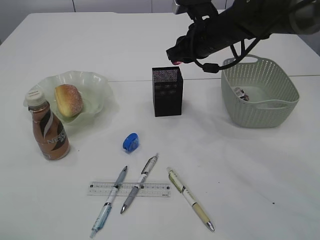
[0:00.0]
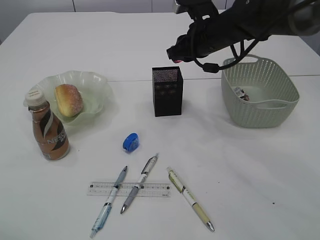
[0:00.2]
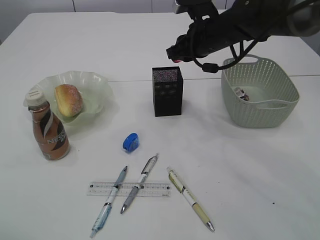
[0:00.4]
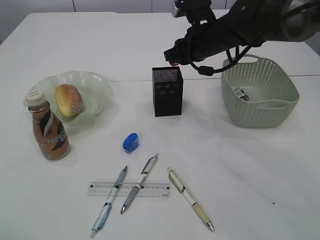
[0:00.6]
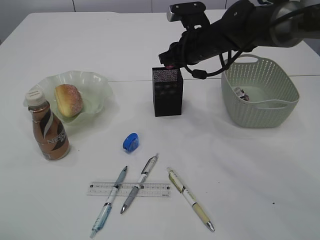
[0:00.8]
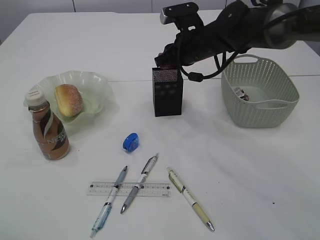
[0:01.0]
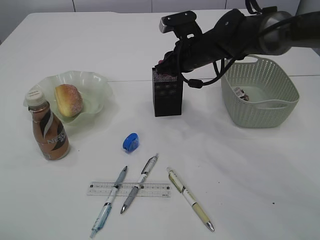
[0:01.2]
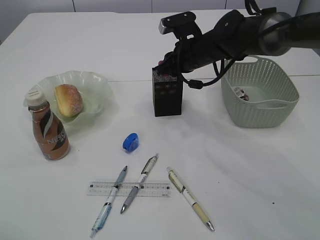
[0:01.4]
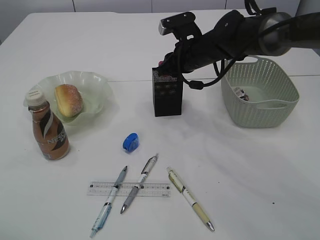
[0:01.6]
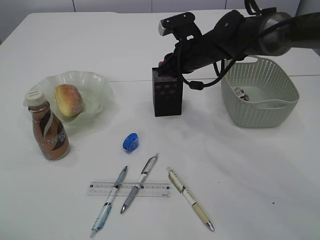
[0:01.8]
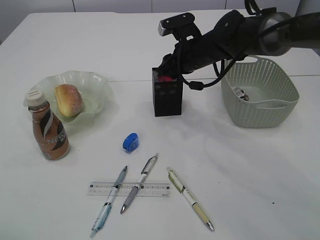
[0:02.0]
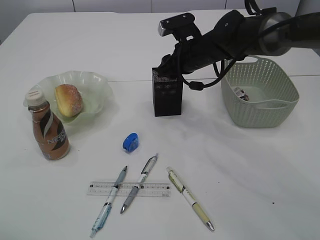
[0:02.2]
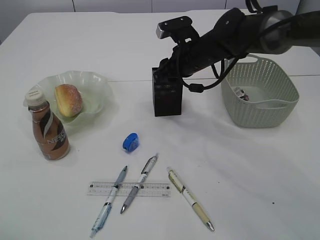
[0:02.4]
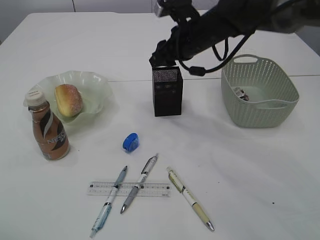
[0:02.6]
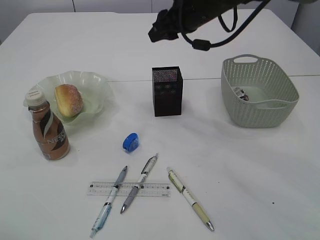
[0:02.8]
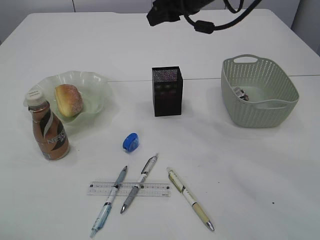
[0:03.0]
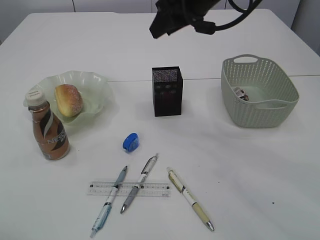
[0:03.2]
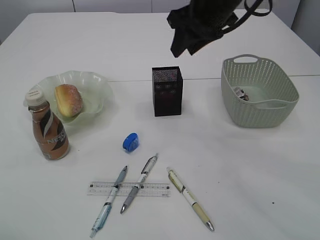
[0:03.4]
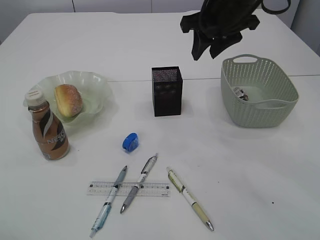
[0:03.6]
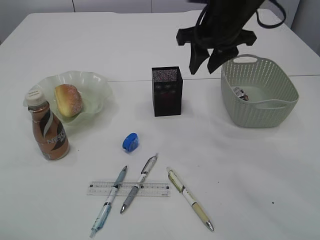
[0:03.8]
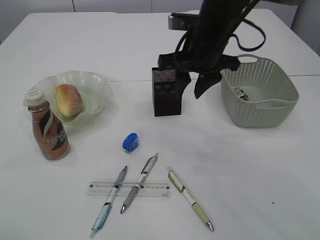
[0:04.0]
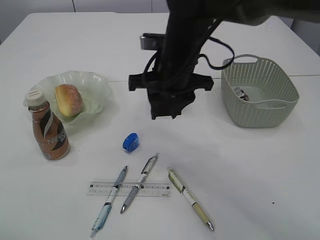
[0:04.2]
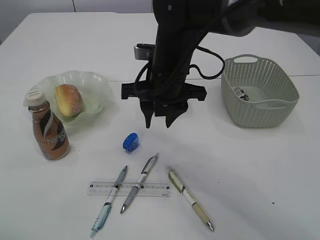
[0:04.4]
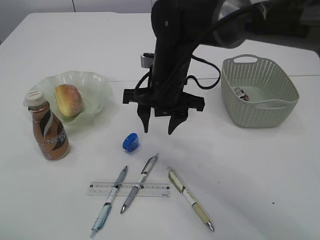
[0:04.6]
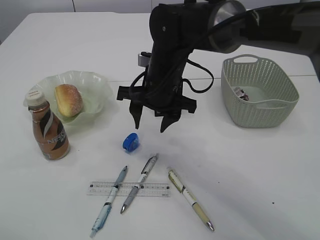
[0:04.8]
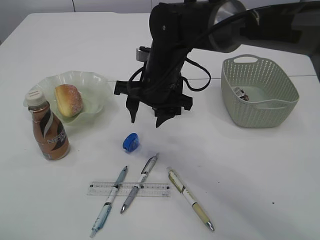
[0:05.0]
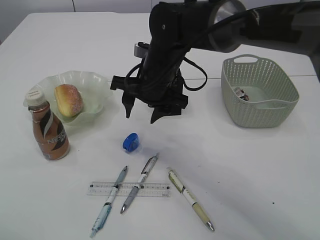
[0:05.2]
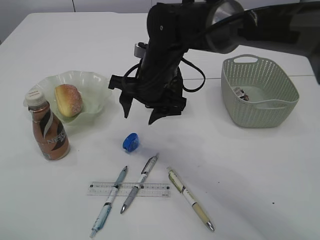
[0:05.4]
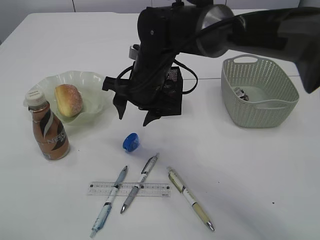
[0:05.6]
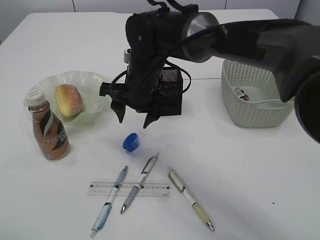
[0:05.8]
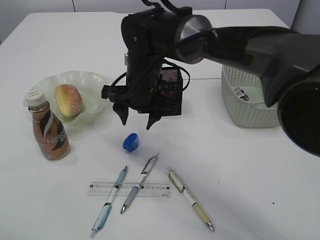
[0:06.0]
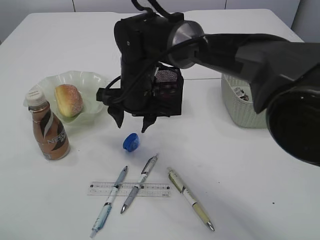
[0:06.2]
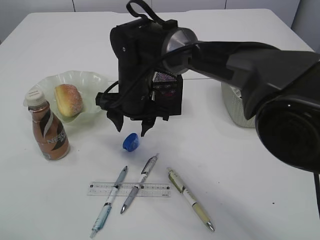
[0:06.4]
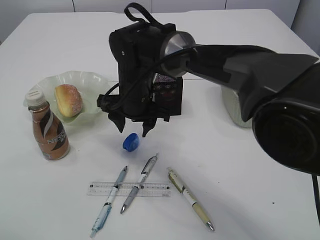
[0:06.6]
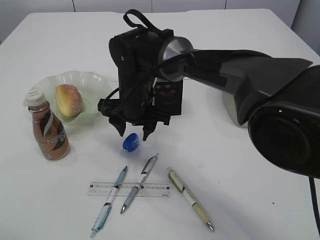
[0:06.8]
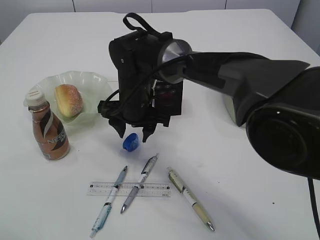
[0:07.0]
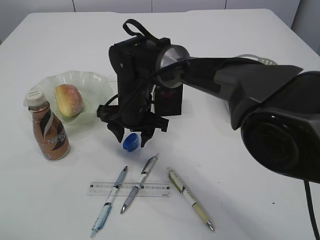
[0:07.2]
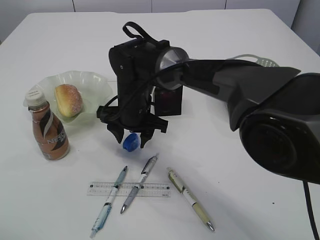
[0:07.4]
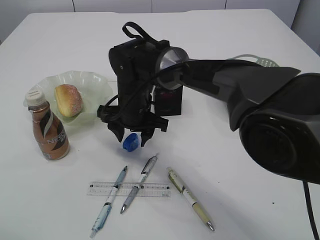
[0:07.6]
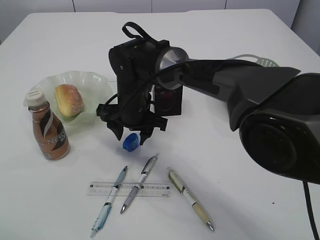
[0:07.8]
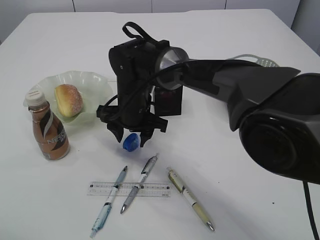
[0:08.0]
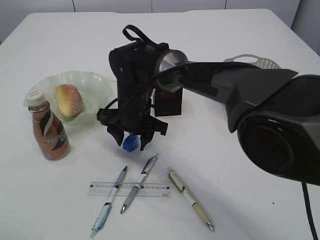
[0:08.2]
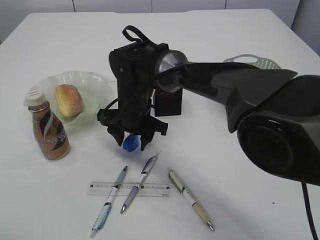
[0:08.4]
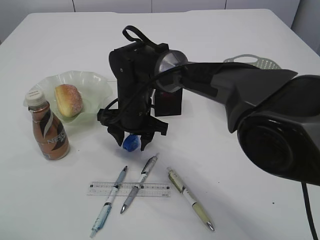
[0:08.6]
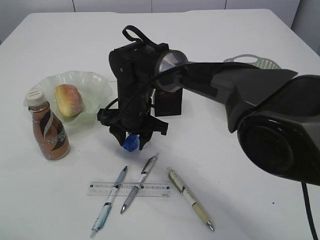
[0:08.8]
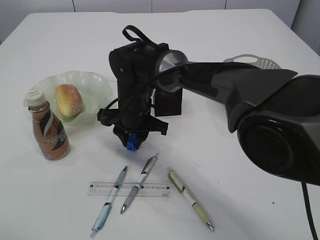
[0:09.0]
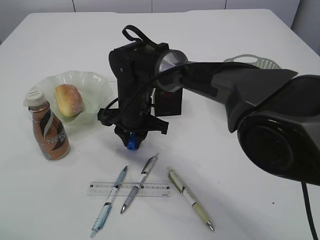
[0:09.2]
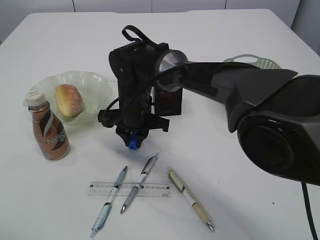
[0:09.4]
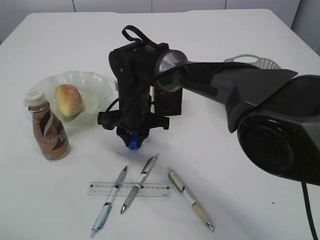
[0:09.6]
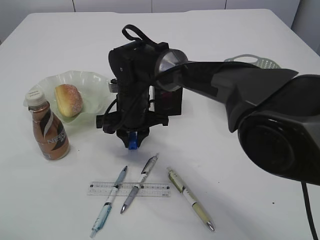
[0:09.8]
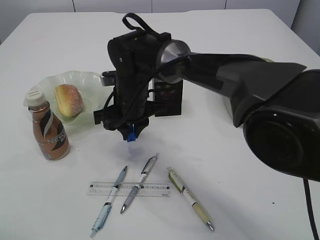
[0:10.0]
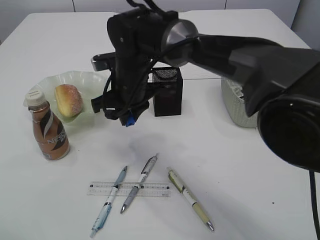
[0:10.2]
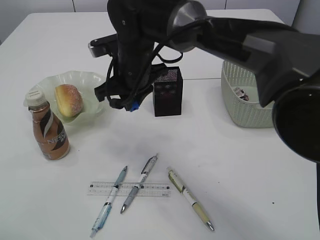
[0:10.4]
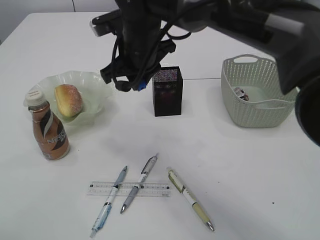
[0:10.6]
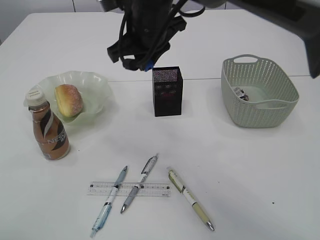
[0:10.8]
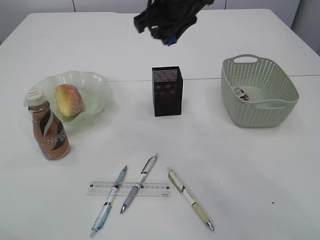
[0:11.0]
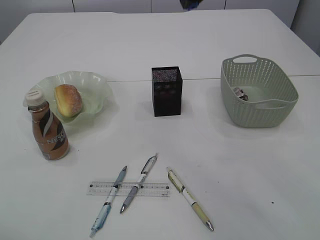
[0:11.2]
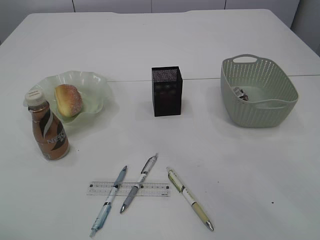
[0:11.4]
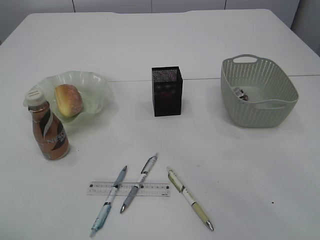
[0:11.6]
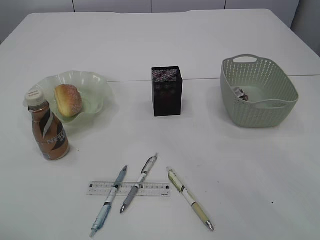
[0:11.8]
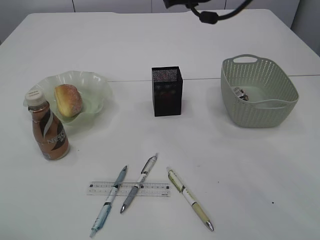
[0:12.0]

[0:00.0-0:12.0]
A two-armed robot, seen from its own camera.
Step, 0:00.0 to 0:02.6: Place the red pencil sharpener into the pen holder.
Step, 0:02.8 to 0:10.2: Pick up the blue pencil sharpener.
0:00.0 to 0:01.6: The right gripper moves approximately 5 cm.
0:01.6 to 0:03.0: The right gripper goes some 15 cm upward, and opens.
0:03.0 to 0:04.4: The right gripper moves downward, backward and to the left, some 15 cm.
0:04.4 to 0:06.0: The right gripper ends up some 5 cm from where it was.
0:06.0 to 0:07.6: The right gripper travels downward by approximately 5 cm.
0:07.6 to 0:09.0: The right gripper closes its fingers.
0:09.0 to 0:10.4: The right gripper shifts about 10 cm upward.
0:10.4 to 0:12.0: The right gripper heads to the right and upward, covering roughly 20 cm.

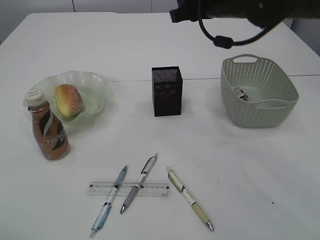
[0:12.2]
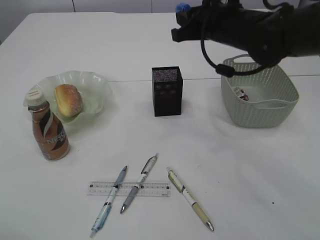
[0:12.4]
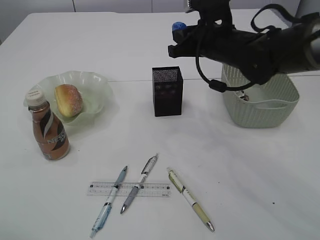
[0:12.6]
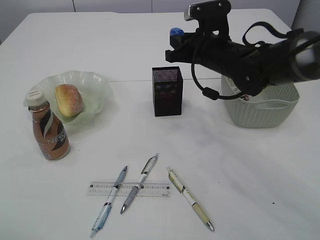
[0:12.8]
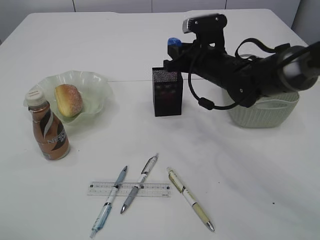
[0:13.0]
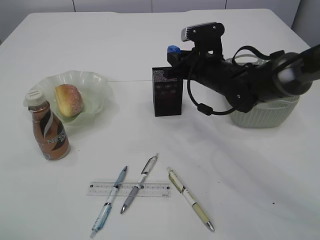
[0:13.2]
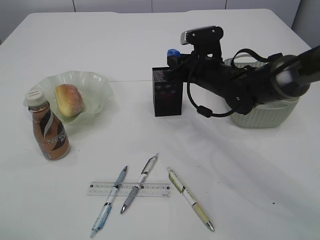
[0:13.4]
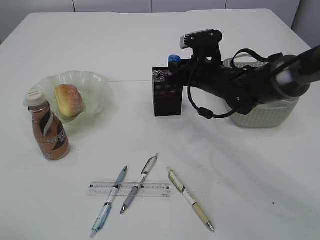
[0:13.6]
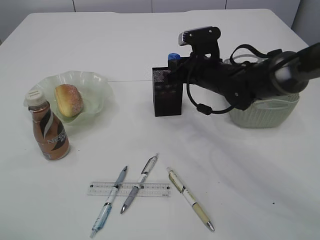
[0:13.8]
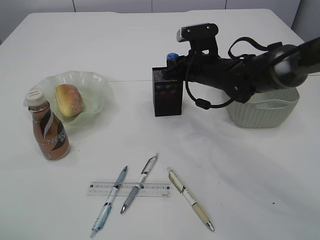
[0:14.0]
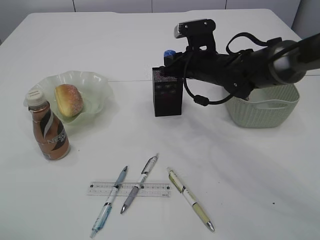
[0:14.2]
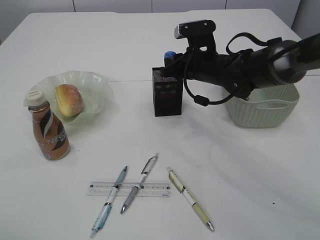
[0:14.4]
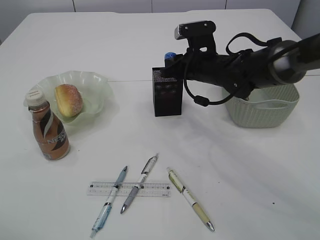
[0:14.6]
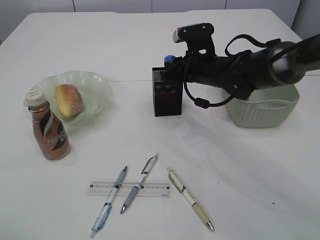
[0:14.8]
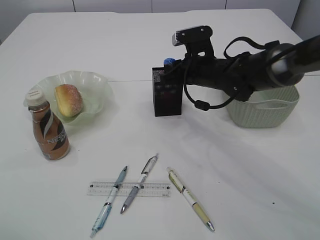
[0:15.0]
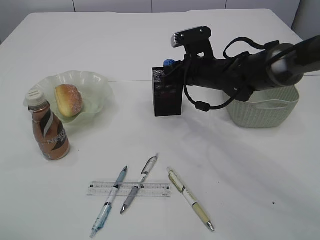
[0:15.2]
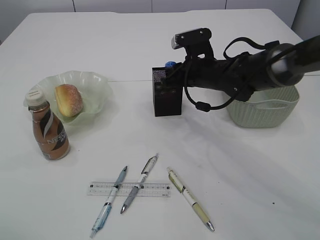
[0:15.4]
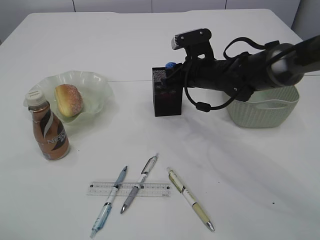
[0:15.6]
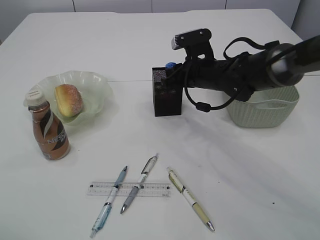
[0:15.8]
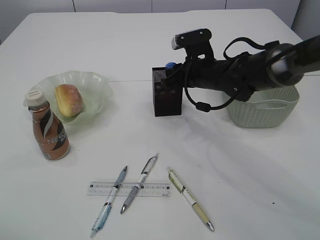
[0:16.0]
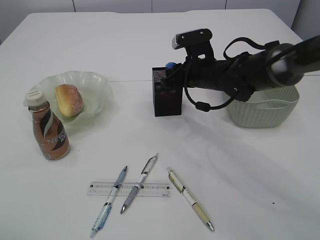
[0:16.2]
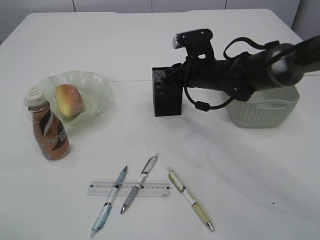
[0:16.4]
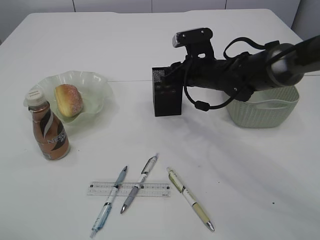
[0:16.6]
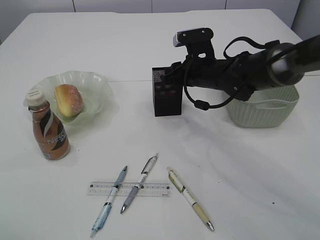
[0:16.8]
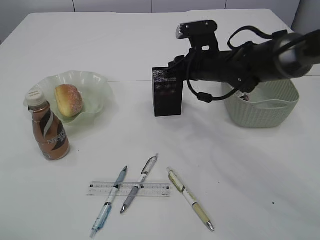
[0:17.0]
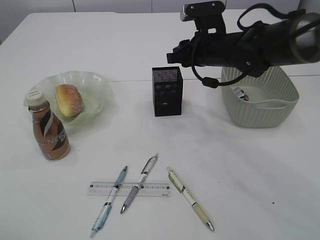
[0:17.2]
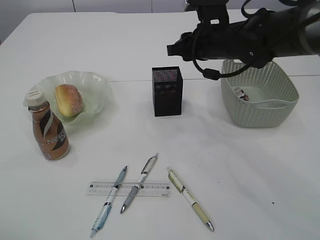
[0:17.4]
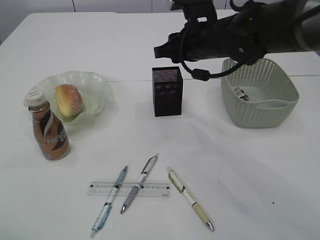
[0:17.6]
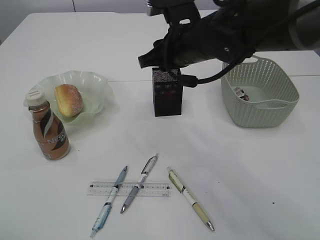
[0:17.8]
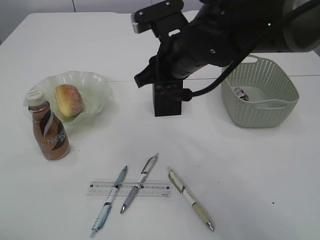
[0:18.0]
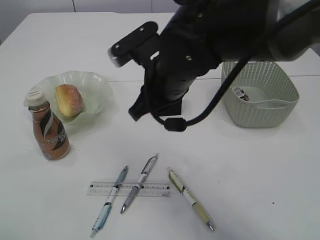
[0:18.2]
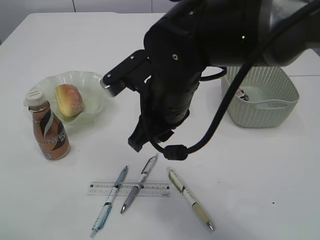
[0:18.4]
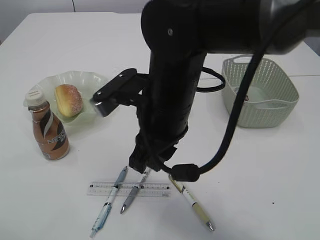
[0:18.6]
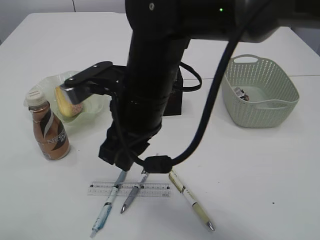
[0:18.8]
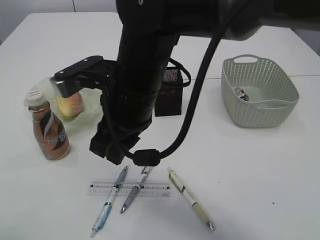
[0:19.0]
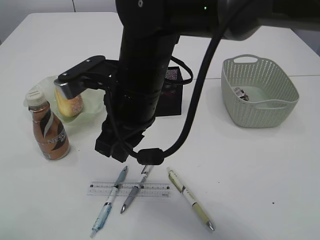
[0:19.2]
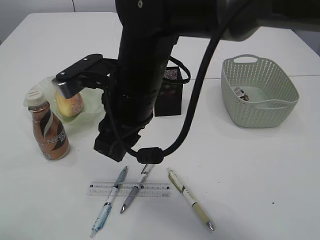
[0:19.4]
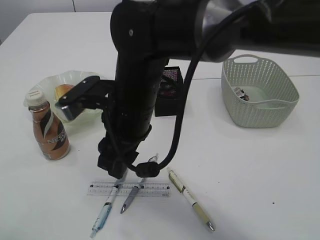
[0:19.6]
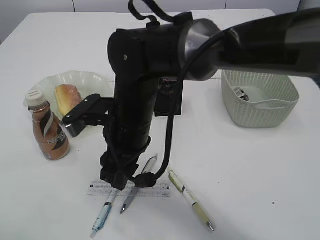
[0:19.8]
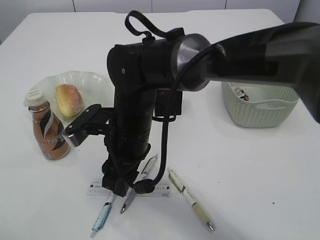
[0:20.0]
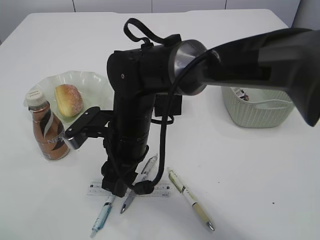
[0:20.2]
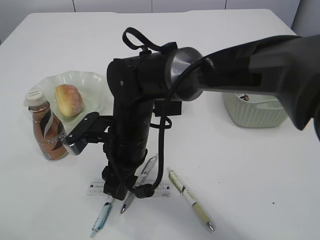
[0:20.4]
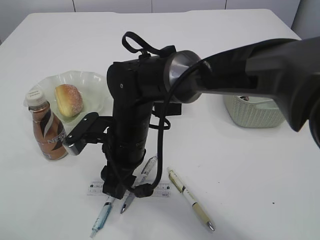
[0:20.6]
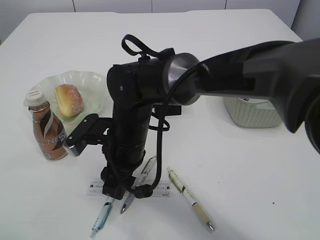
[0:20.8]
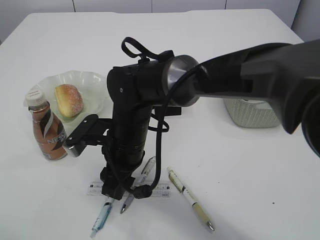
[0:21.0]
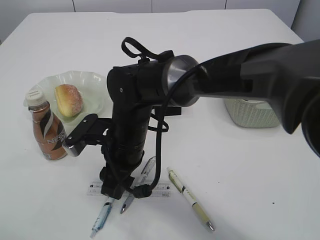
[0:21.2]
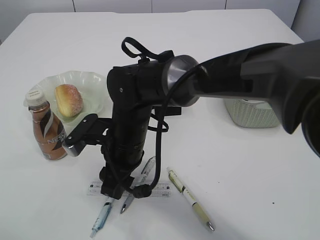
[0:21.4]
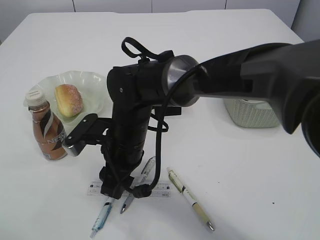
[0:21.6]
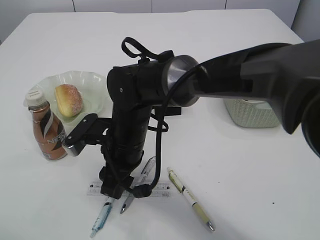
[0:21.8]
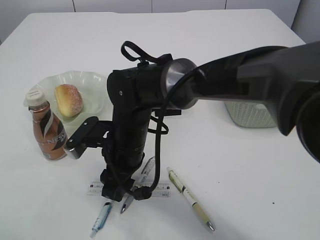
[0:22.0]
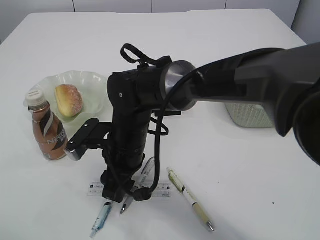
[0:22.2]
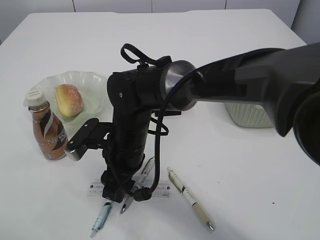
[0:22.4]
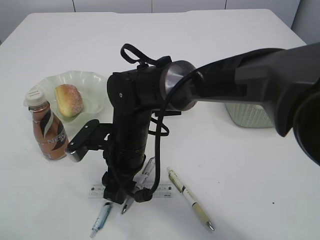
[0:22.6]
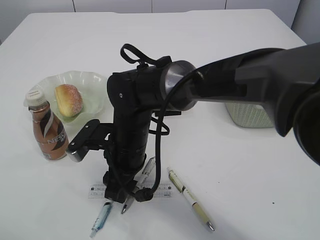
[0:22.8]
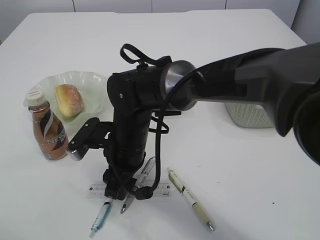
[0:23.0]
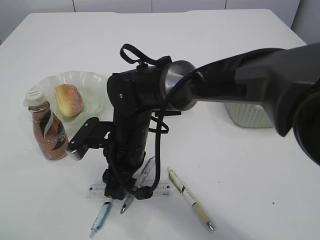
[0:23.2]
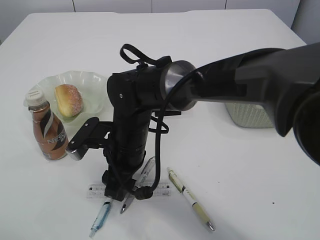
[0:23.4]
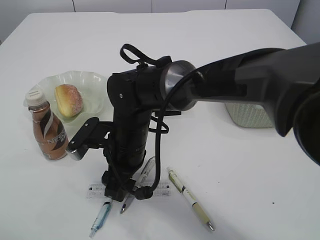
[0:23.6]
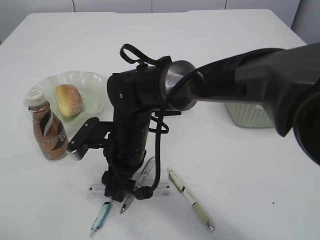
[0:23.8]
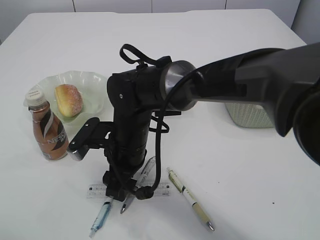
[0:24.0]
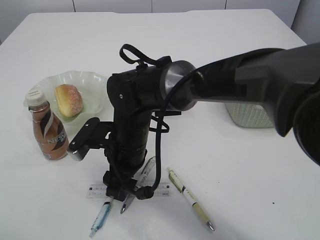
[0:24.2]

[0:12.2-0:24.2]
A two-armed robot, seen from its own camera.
Step, 0:12.2 to 0:17.2: Place the blue pencil sharpener into the pen holder.
0:12.2 to 0:13.8: The right gripper travels downward by approximately 15 cm.
0:13.8 to 0:15.2: There are only small adjustments of the grippers.
0:15.2 to 0:16.6: Neither gripper changes place.
0:16.6 to 0:18.2: The right gripper moves backward, to the left and upward, about 20 cm.
0:18.2 to 0:19.8: The right gripper moves to the left and downward, roughly 10 cm, and opens its fingers.
0:19.8 to 0:21.2: The right gripper shifts approximately 5 cm downward.
0:21.2 to 0:24.2: Neither gripper changes place.
